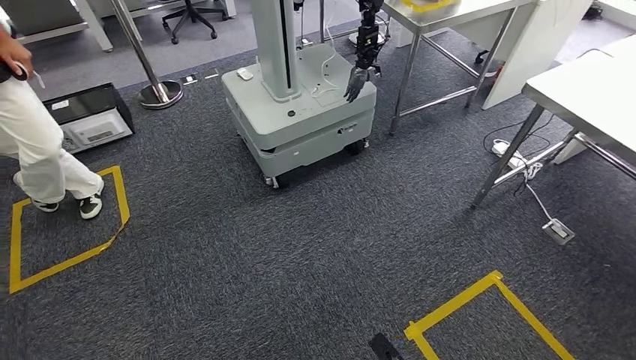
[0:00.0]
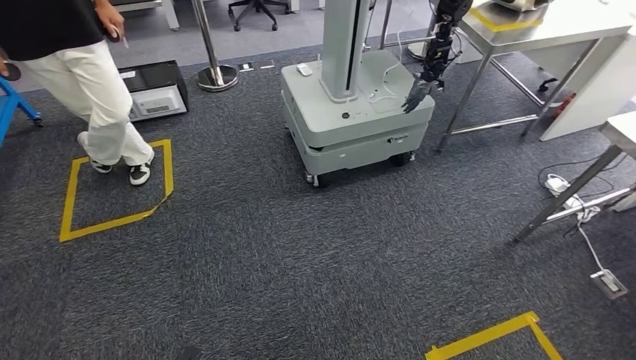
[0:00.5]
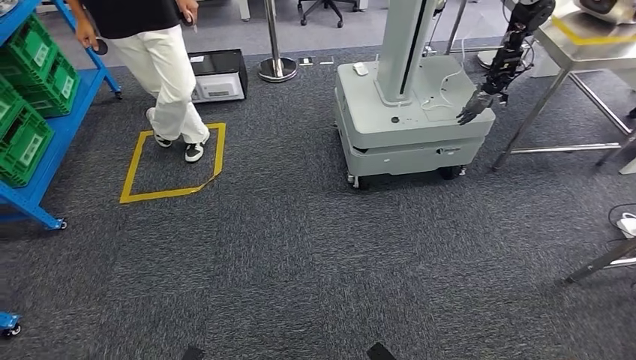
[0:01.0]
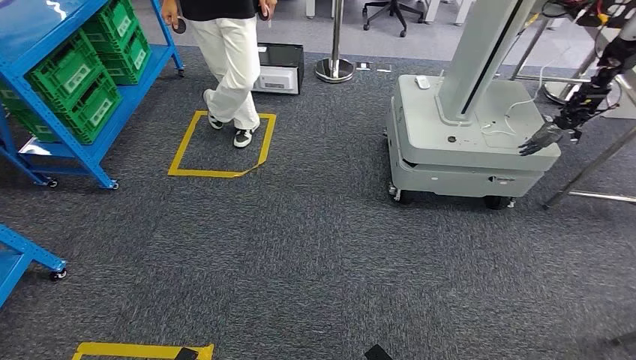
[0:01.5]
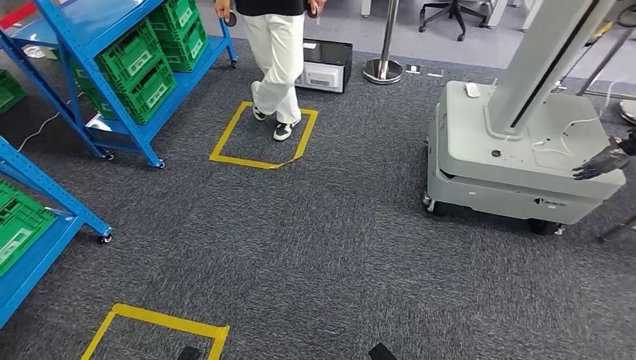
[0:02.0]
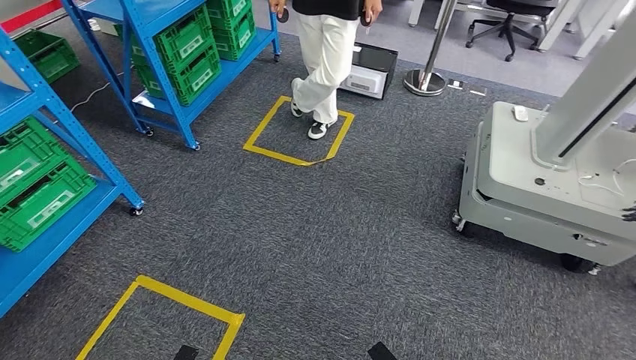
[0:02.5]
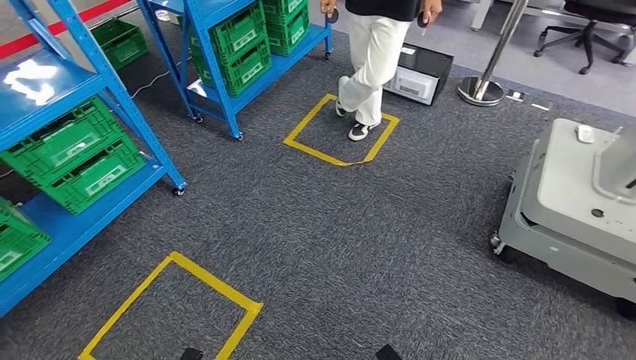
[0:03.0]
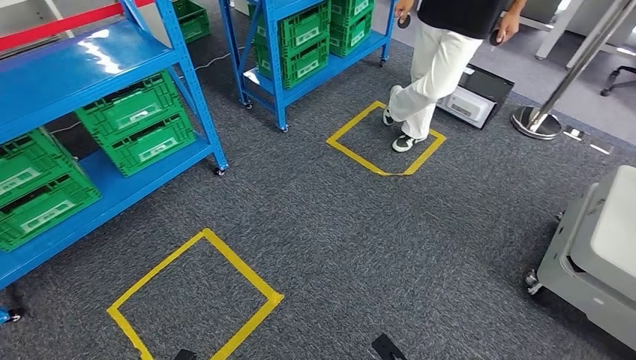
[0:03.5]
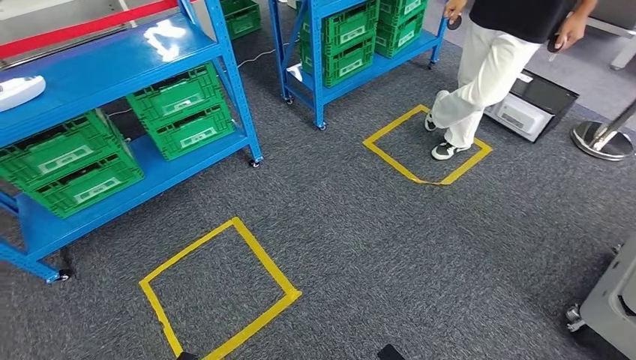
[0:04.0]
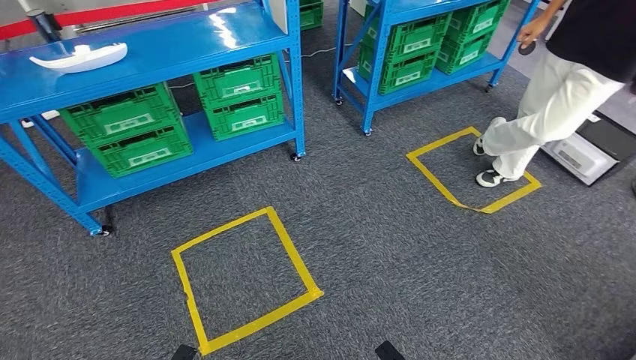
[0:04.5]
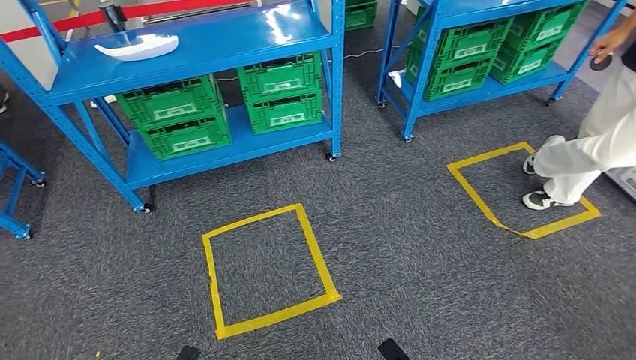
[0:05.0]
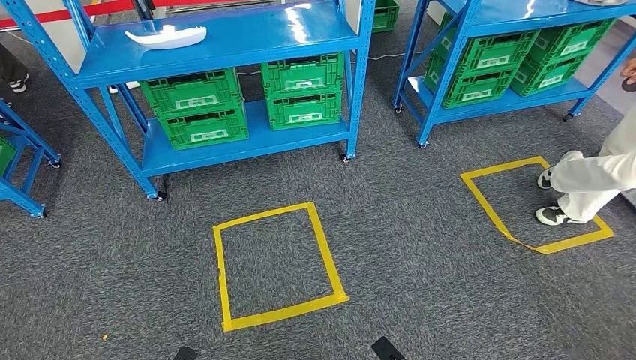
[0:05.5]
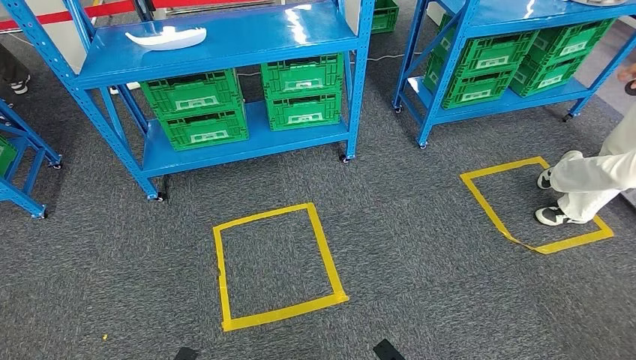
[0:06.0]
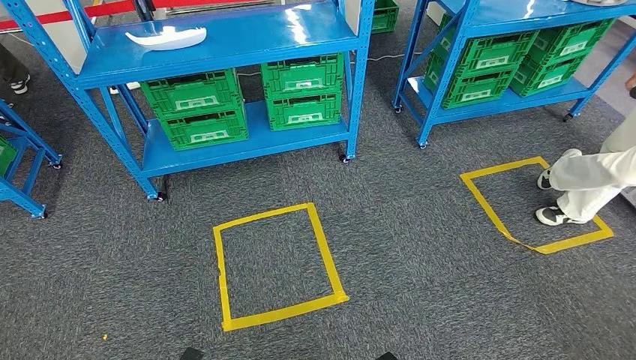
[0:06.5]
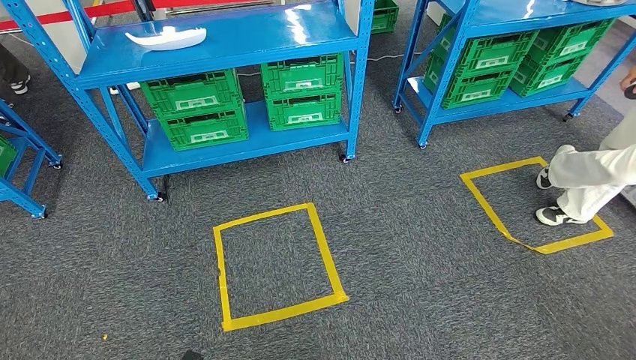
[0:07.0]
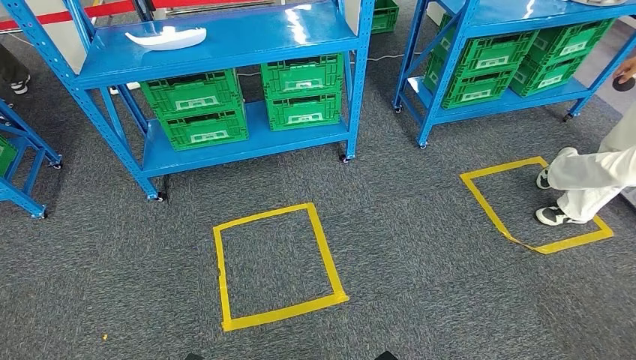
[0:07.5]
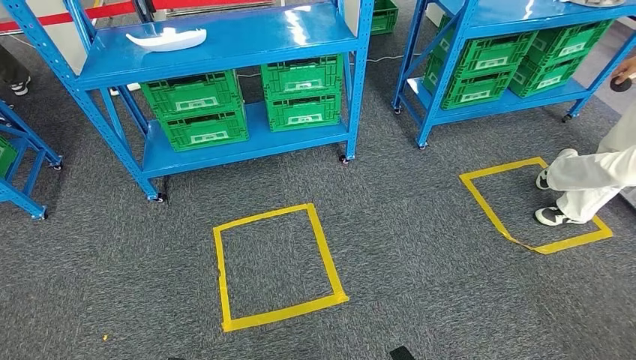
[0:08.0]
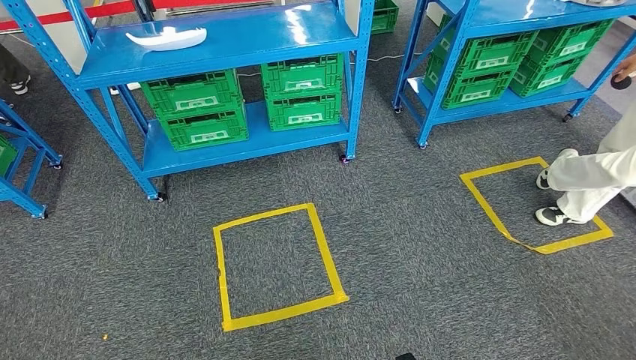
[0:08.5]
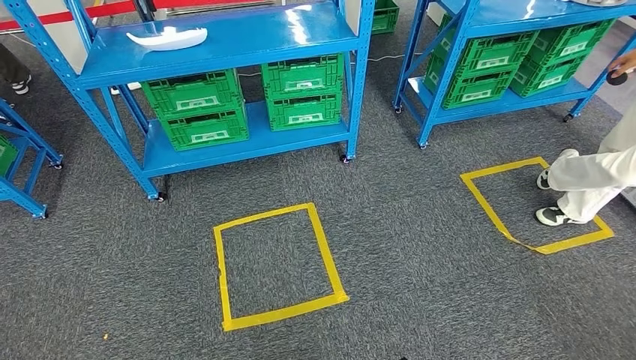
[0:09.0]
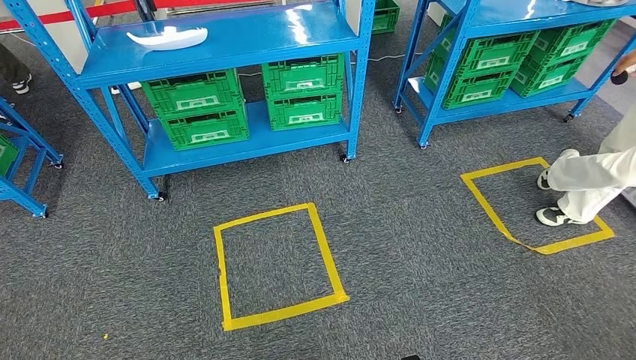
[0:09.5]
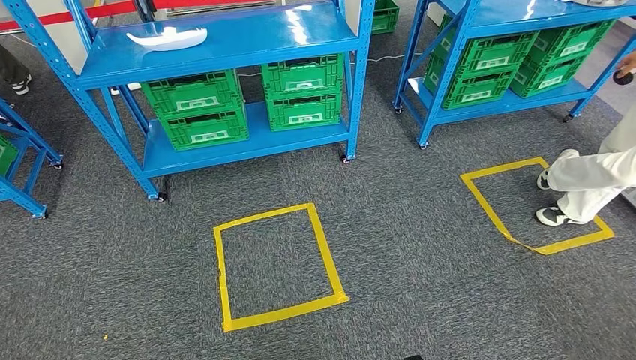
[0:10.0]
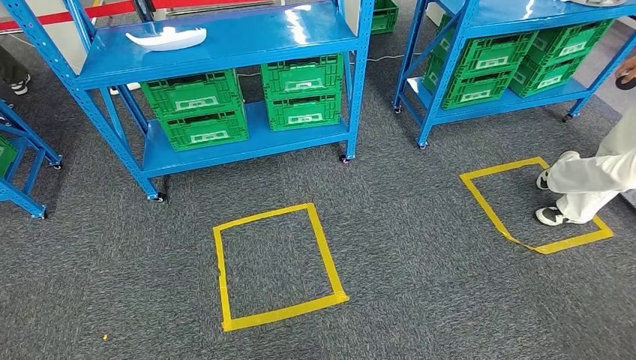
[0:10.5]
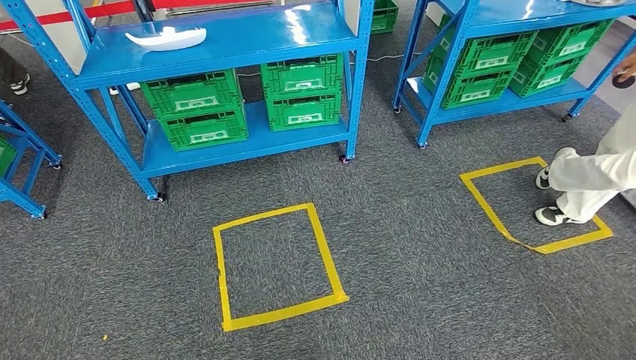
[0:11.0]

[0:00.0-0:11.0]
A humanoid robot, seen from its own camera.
Step, 0:00.0 to 0:11.0: Return to the initial position at the workbench.
0:05.5 to 0:07.5: The hands stay close to where they were, moving slightly.
